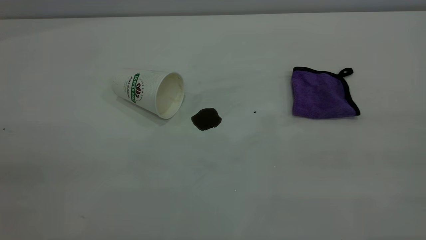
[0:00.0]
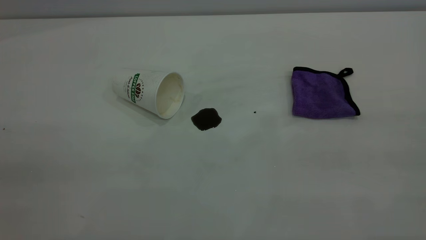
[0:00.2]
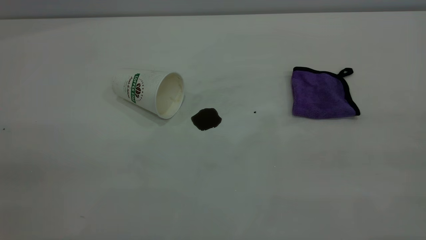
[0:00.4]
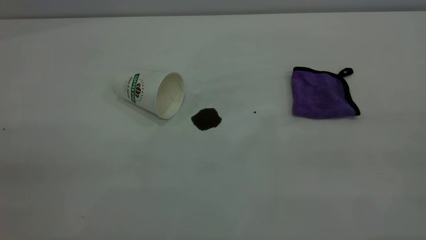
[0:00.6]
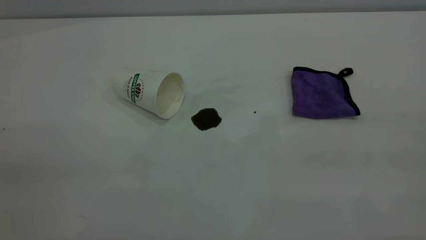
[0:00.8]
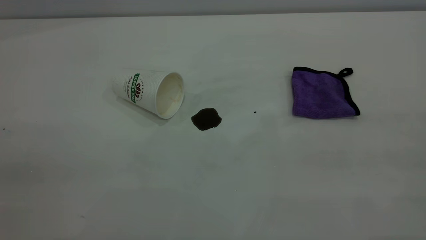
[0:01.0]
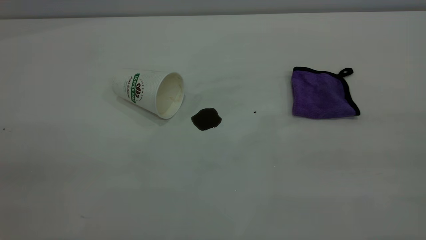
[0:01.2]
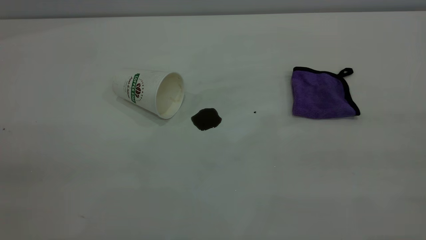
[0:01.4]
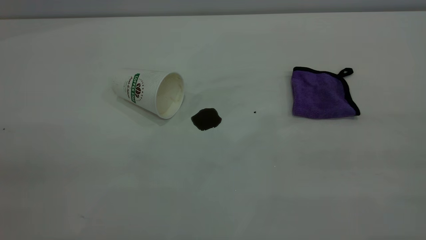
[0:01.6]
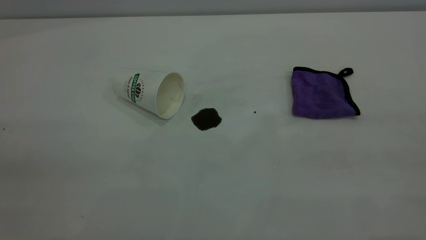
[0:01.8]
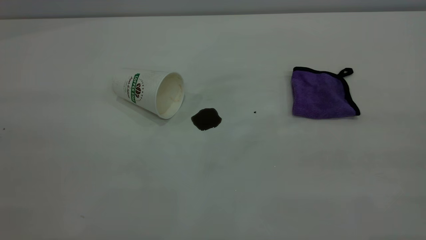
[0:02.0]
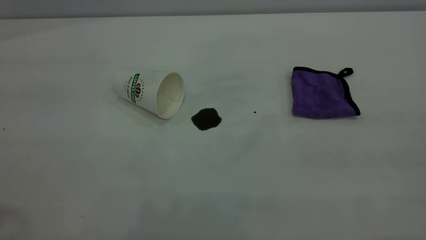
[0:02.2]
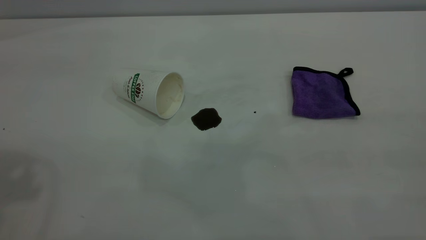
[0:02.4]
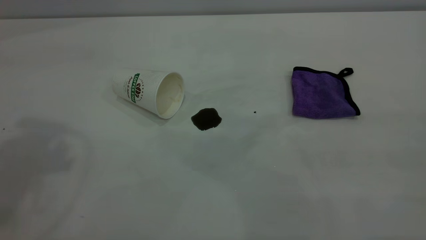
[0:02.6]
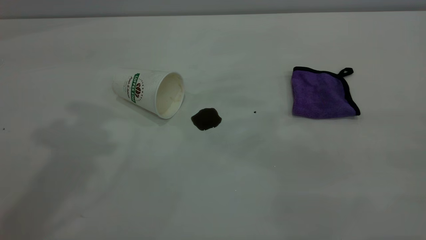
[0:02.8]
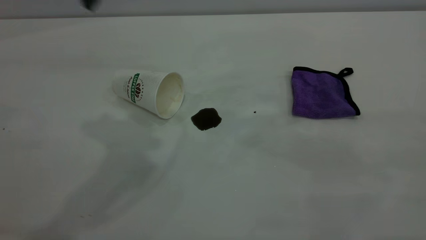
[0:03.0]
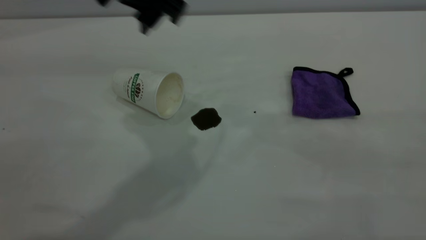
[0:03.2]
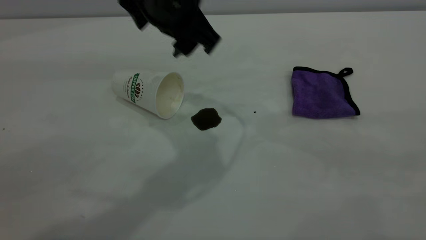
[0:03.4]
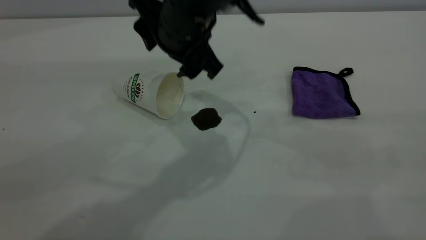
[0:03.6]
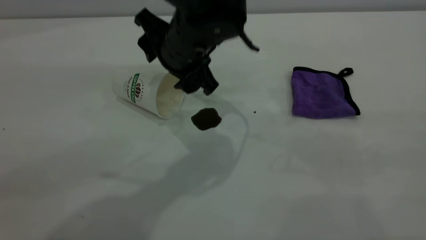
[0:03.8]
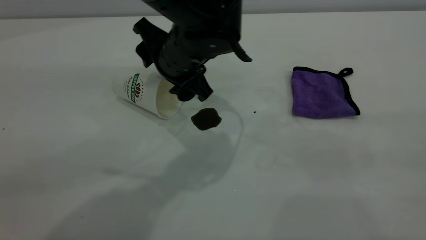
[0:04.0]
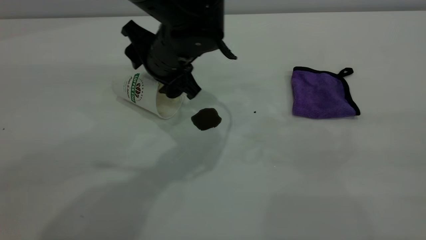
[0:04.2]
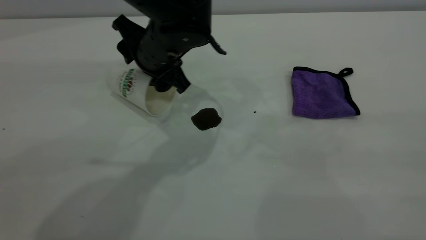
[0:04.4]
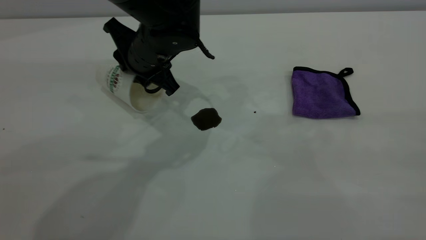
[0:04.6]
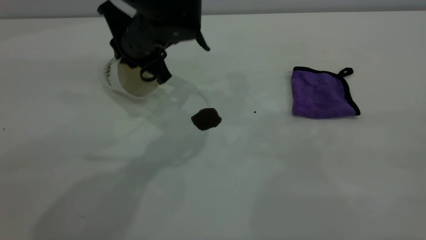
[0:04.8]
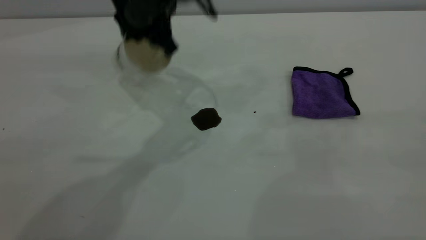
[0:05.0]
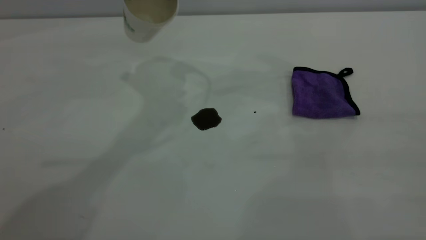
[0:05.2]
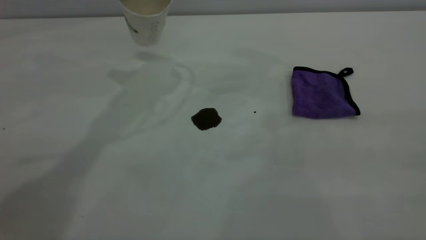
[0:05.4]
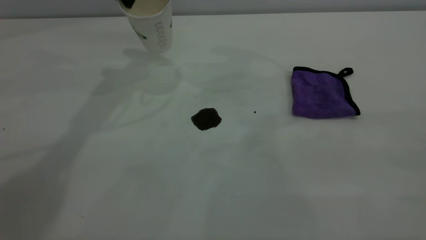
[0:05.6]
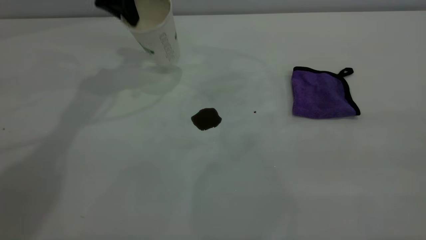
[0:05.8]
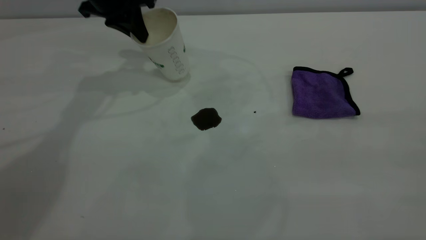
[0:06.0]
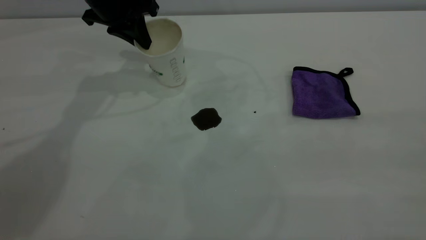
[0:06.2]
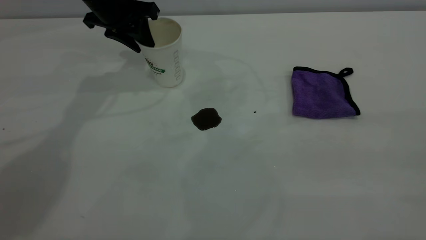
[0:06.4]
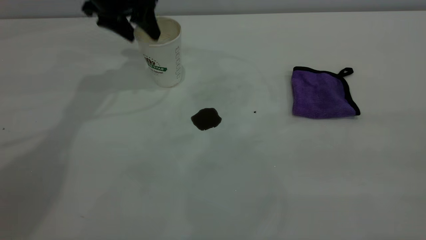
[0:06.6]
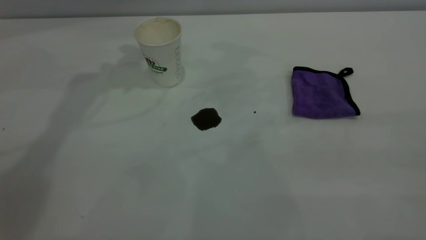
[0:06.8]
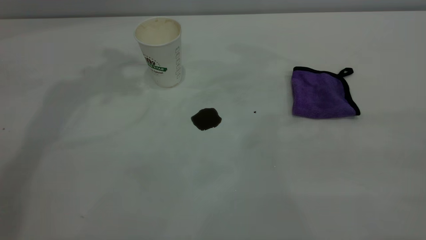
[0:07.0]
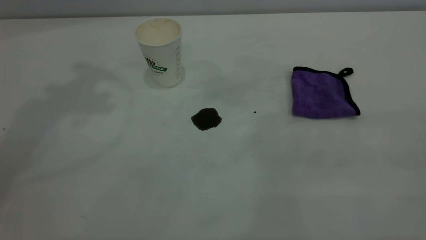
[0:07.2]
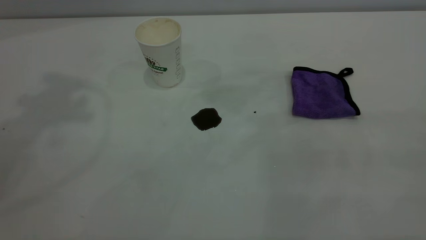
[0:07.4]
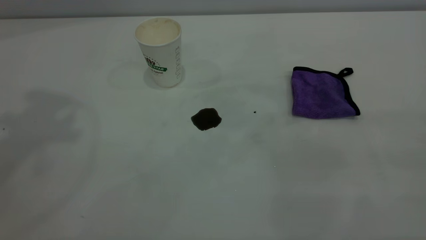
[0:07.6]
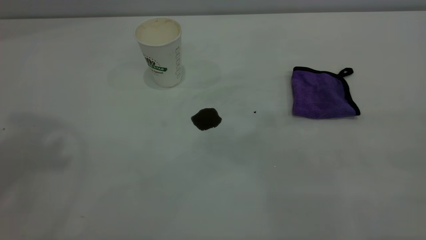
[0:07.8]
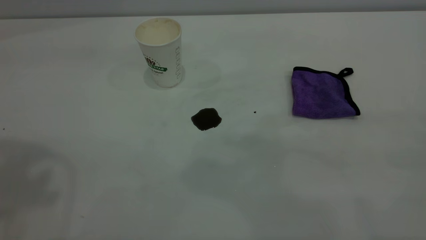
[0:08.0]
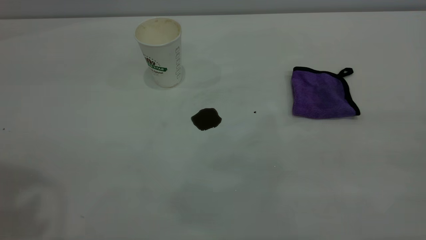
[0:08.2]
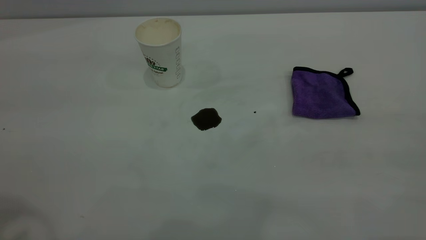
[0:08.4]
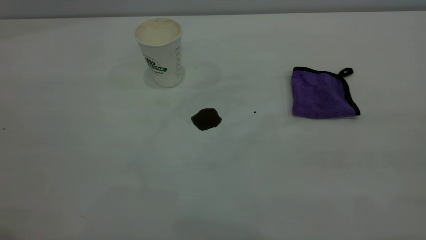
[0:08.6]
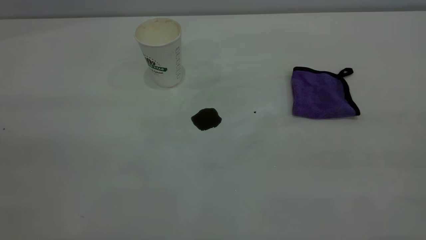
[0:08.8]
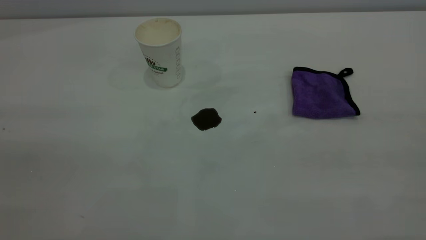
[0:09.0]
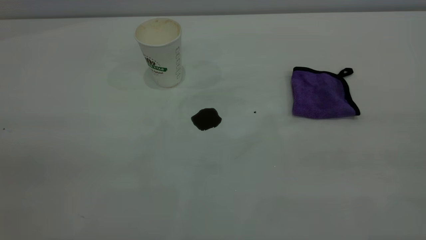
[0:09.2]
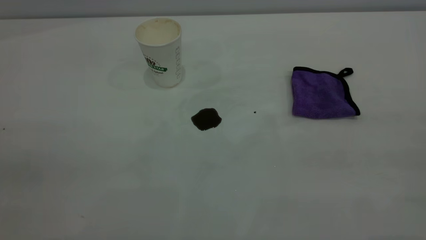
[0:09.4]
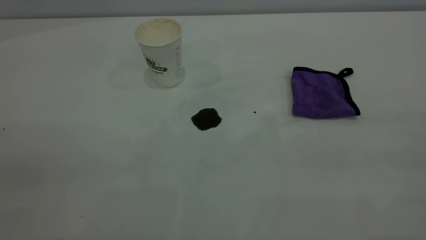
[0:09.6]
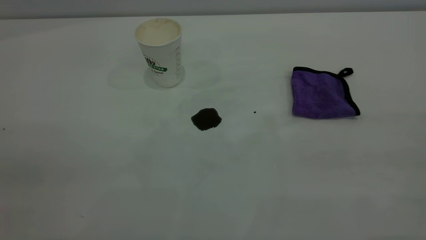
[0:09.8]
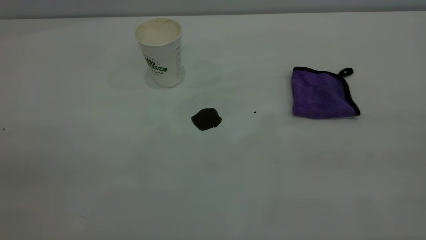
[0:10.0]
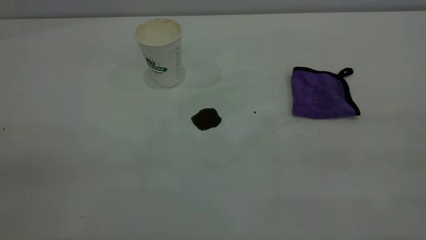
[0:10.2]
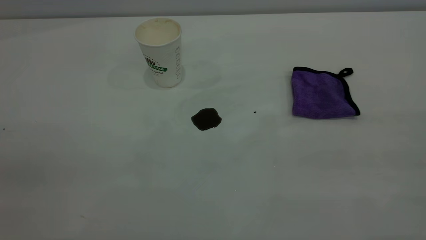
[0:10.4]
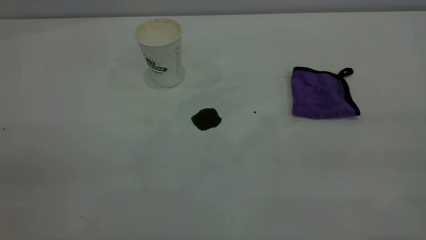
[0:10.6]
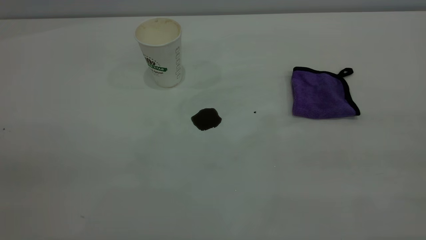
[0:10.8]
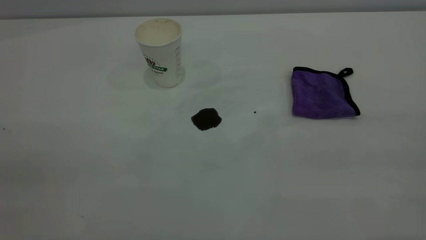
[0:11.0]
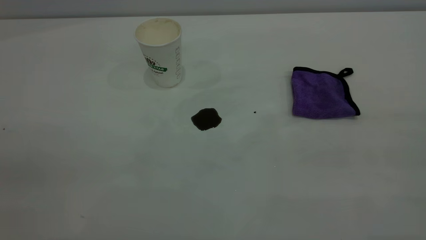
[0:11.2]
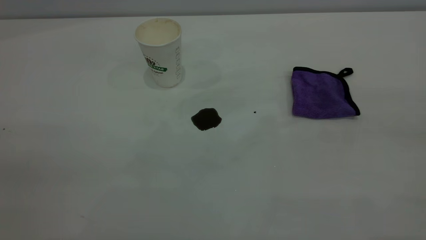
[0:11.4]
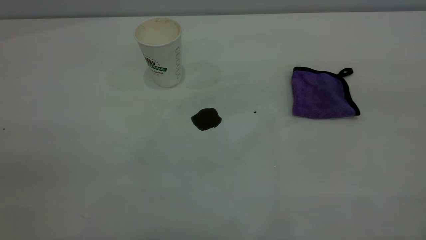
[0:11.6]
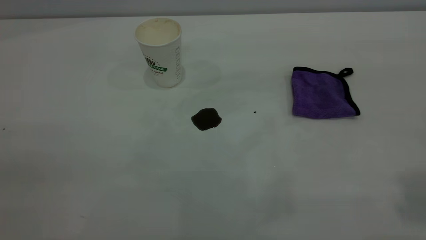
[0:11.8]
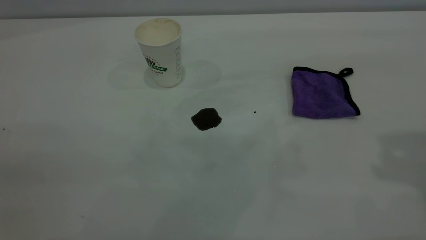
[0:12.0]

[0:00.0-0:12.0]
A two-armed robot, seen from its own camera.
Task of the whole recording: the left gripper pick up the fallen cup and place it upright, the right gripper grasp the purple rag and wipe the coffee stain on the table, the right gripper put the purple rag back in its original position.
Step, 0:00.0 to 0:06.6: Stand the paper cup upright.
0:00.0 to 0:01.6: Both grippers stay about where they are.
0:03.0 to 0:04.4: The left gripper moves downward, about 20 cm.
0:04.4 to 0:06.0: The left gripper moves to the left, forward and upward, some 15 cm, and closes up.
0:06.0 to 0:07.6: The left gripper moves upward and backward, some 40 cm, and opens.

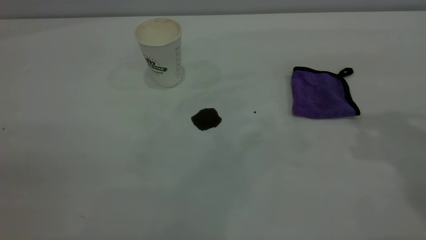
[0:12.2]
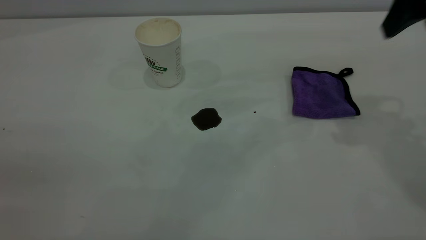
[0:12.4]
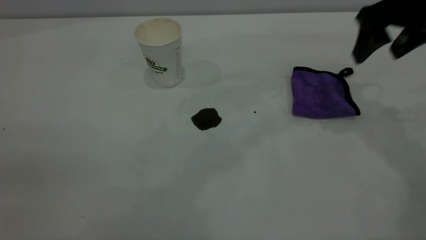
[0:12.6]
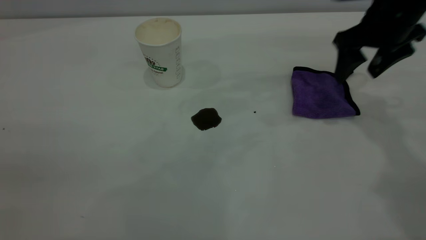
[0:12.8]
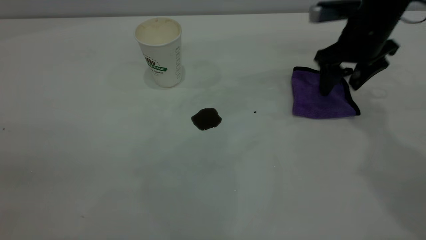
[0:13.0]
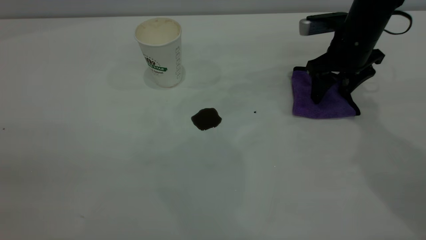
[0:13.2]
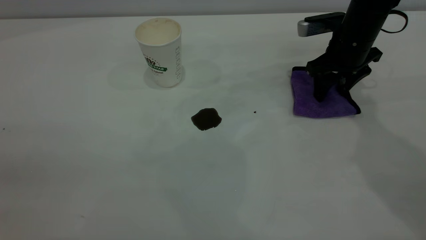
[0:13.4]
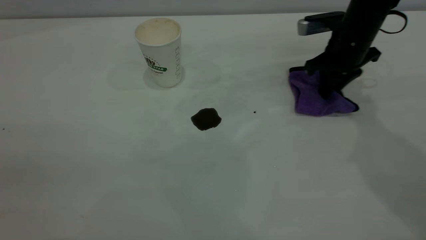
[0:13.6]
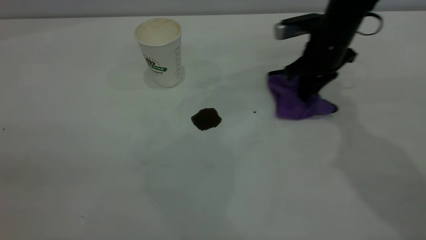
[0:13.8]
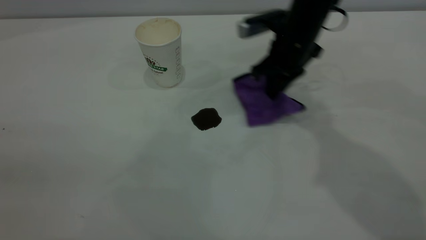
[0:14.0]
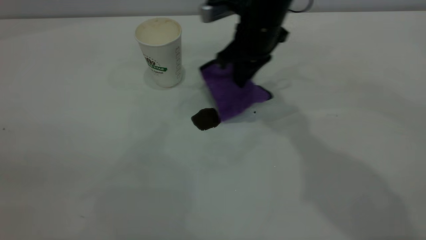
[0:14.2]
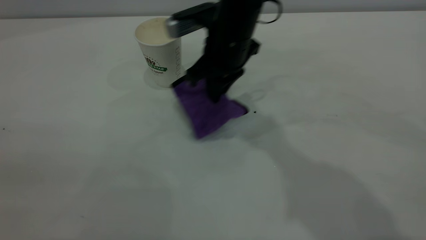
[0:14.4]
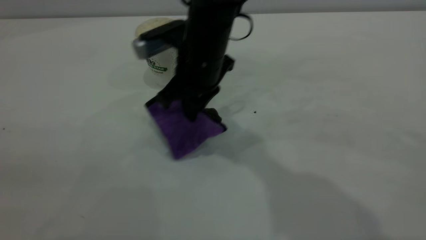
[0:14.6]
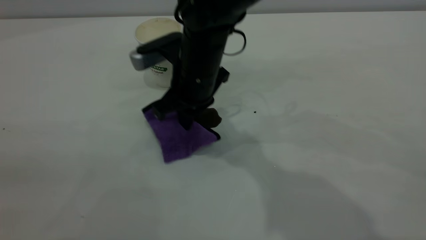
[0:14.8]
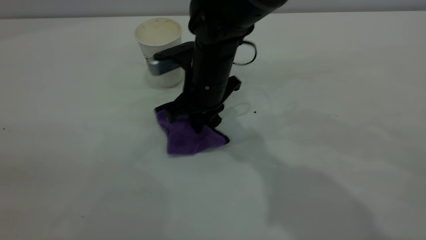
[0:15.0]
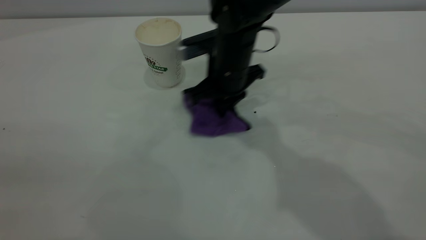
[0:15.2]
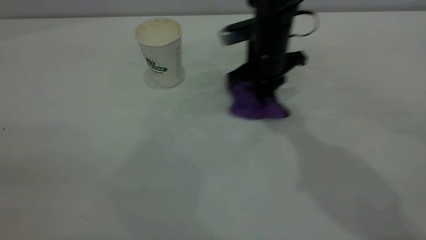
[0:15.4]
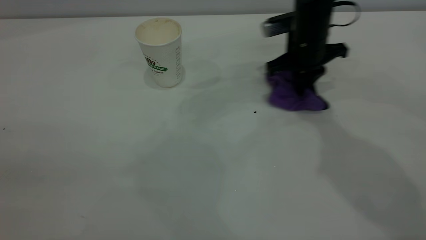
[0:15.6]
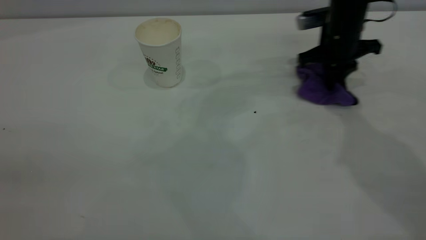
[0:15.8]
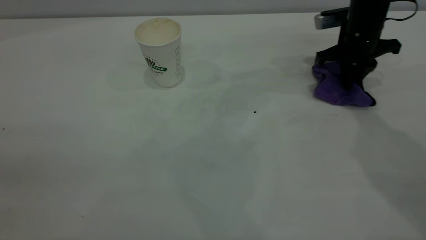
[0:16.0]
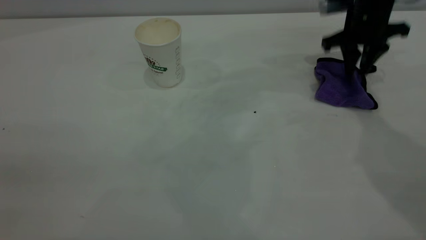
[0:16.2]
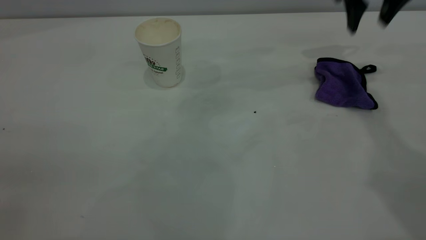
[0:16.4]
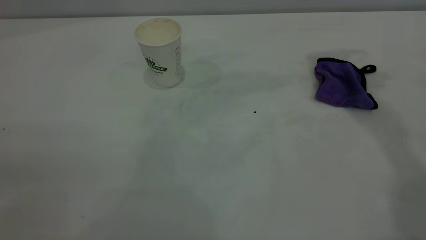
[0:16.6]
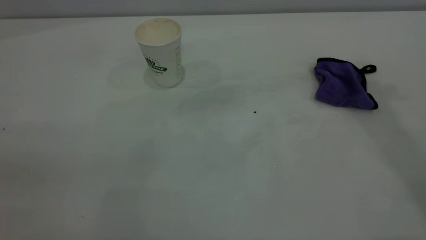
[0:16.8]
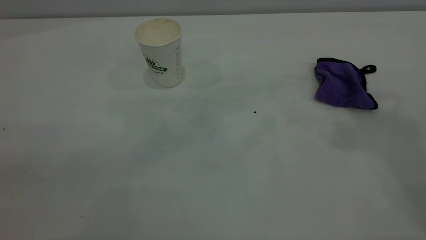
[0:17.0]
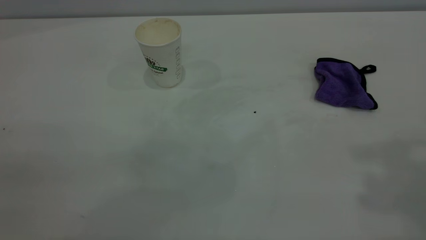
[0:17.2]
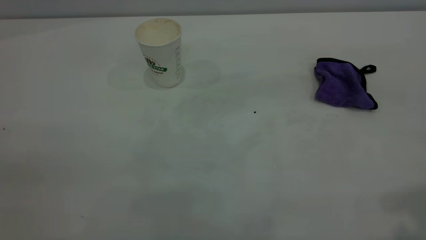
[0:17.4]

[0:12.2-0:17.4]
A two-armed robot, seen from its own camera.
Task of the whole recording: the left gripper pick up the fallen cup and place it upright, the right gripper grasp the purple rag and wipe the coffee stain on the table, the right gripper put the purple rag back in its original position.
Step, 0:12.2 to 0:16.2: Wipe the stains off the table with a rag.
0:12.2 to 0:14.0: The right gripper heads downward, to the left and forward, covering about 30 cm, and closes.
0:14.0 to 0:15.6: The right gripper reaches some 15 cm to the left, then returns.
0:15.6 to 0:17.4: The right gripper travels backward and upward by about 50 cm, and opens.
